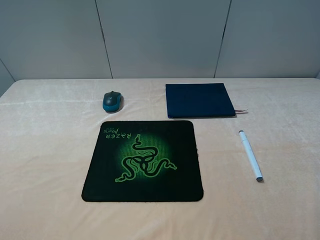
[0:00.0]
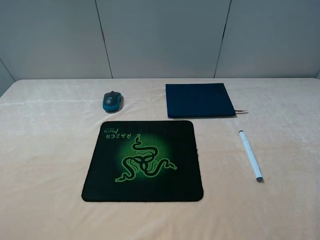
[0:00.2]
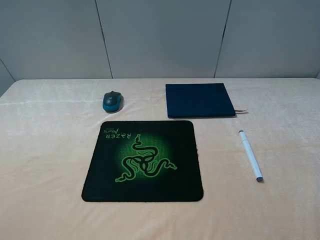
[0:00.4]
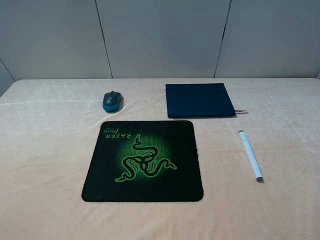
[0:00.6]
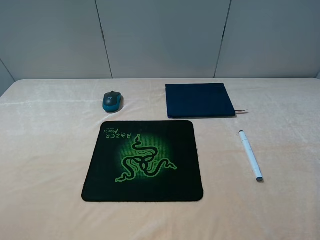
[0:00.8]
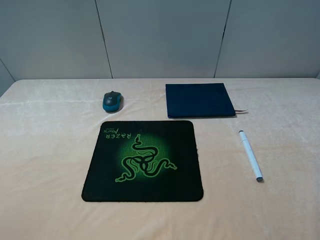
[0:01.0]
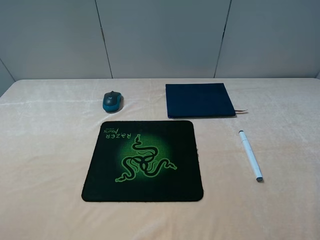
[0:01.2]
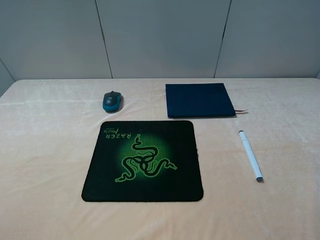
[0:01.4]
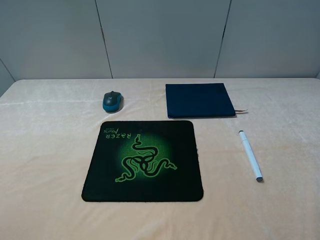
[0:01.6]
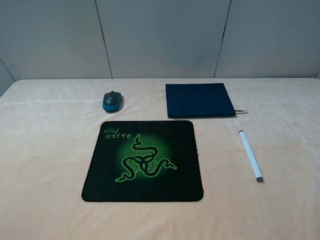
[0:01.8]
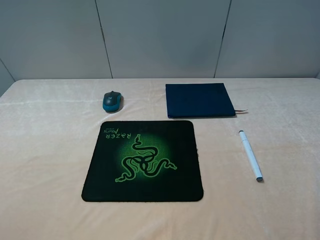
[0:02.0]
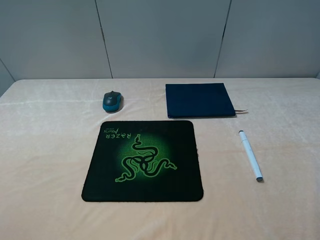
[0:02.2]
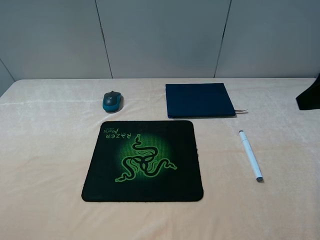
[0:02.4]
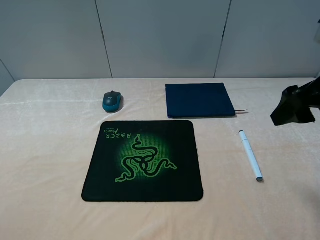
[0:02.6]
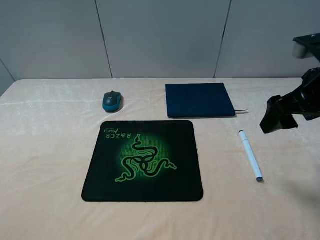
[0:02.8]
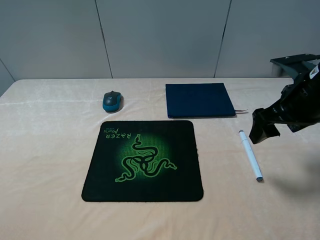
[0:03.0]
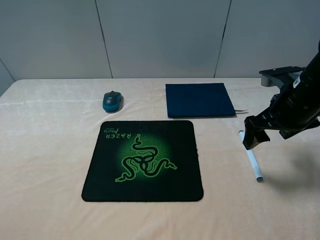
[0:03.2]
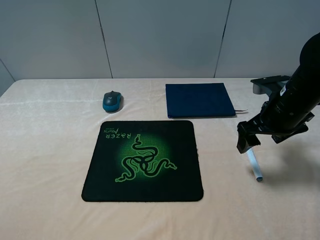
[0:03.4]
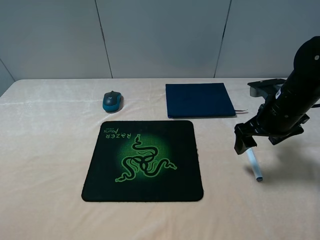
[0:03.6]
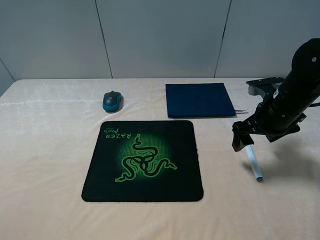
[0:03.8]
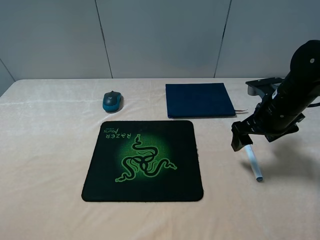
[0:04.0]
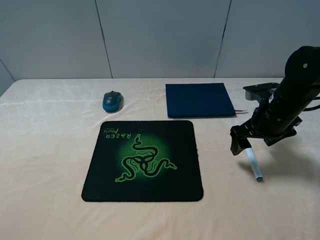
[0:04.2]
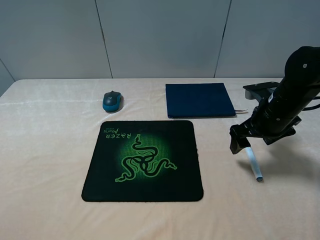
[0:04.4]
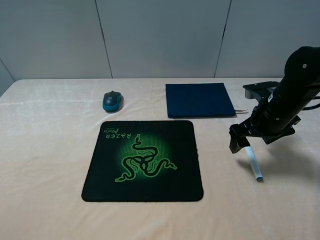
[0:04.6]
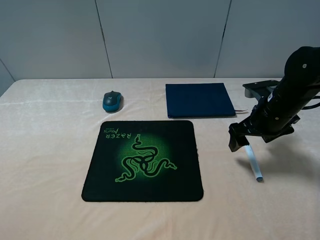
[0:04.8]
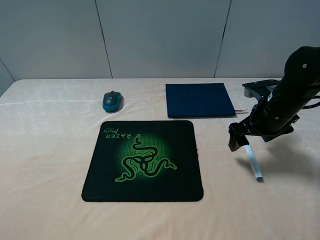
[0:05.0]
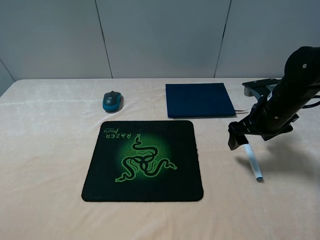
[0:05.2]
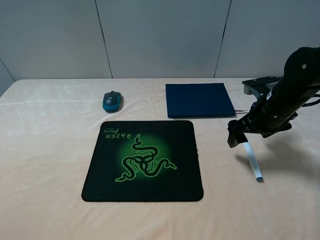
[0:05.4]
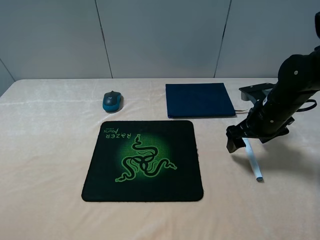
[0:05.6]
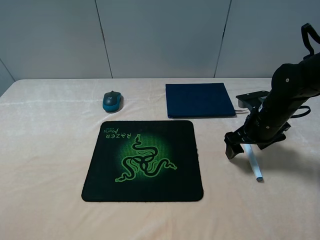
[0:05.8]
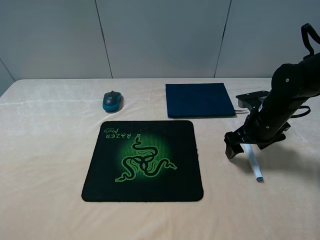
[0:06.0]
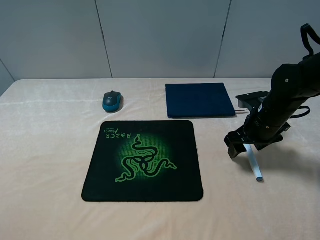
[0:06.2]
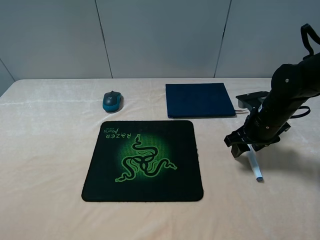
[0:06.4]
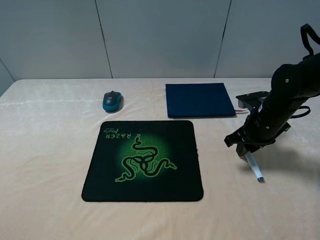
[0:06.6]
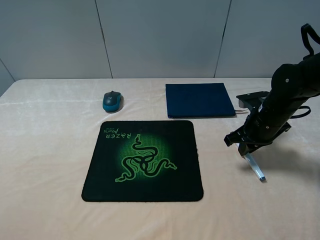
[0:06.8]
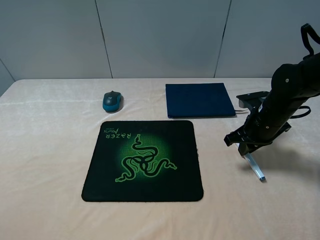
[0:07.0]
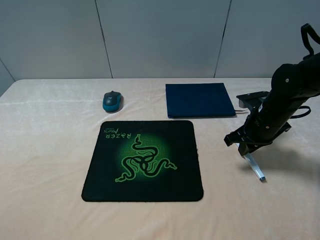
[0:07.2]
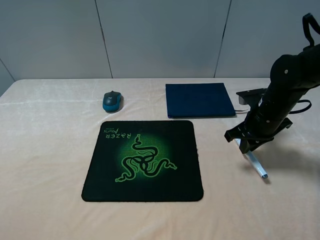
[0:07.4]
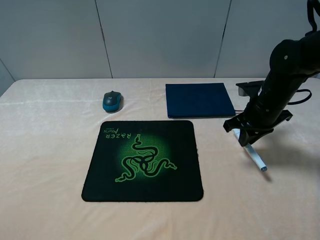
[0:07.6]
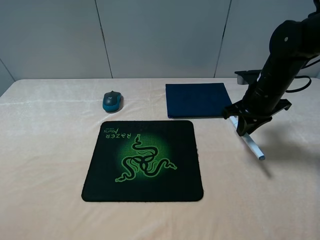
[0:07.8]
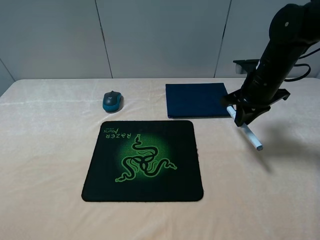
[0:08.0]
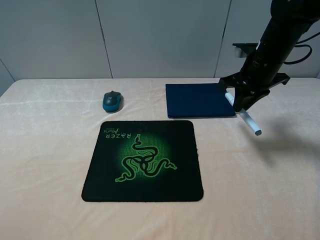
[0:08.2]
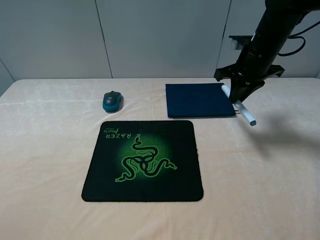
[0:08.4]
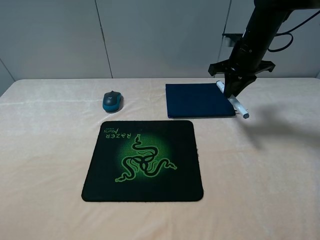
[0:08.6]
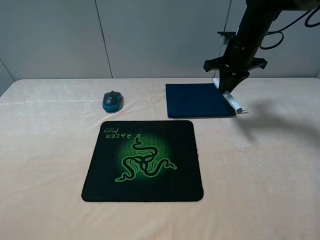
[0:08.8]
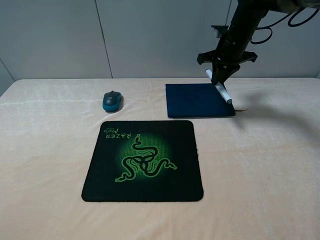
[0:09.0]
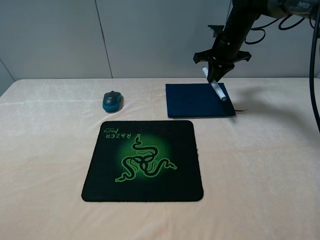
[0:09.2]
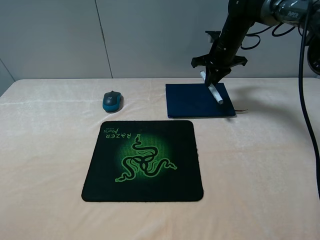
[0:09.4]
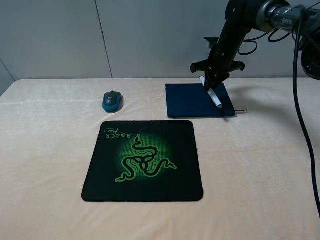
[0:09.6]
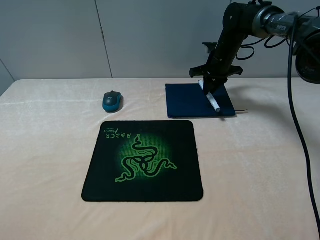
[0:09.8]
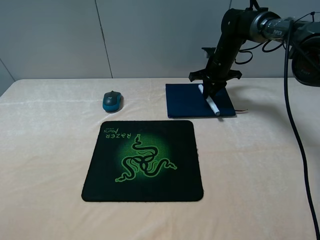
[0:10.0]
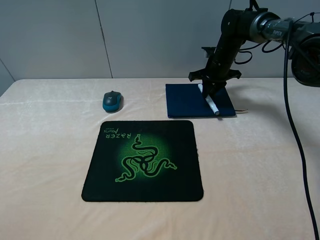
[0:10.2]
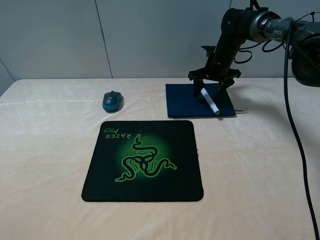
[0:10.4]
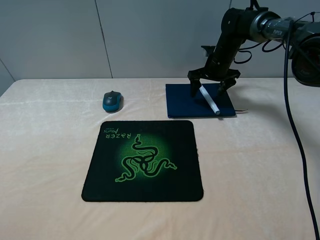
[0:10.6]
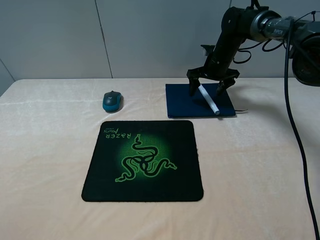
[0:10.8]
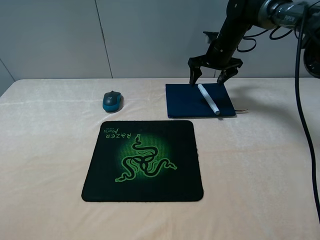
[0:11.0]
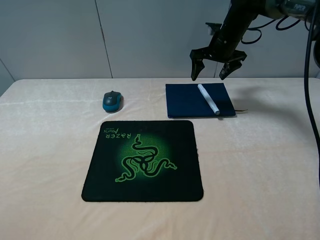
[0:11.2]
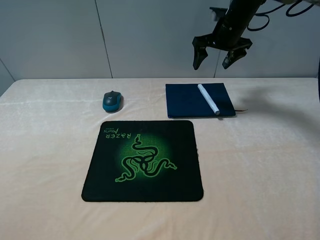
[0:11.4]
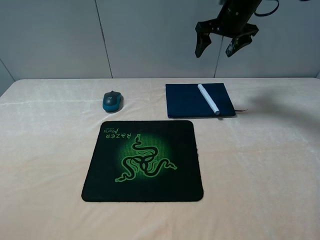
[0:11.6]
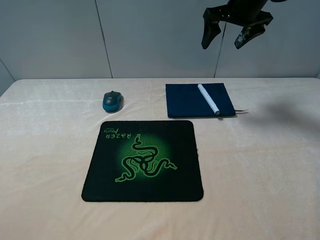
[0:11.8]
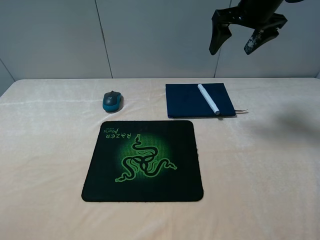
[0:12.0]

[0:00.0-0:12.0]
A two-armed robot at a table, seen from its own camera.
Step, 0:00.0 to 0:07.2: Grasp the marker with the right gripper.
Step, 0:07.4 to 0:11.4: Place the marker on the notebook with the right gripper.
0:01.6 to 0:03.0: The right gripper shifts some 25 cm forward.
0:03.0 to 0:04.4: The right gripper moves downward, roughly 5 cm.
0:04.4 to 0:06.0: The grippers stay close to where they were, moving slightly.
0:06.0 to 0:07.6: The right gripper closes its fingers.
0:07.6 to 0:09.0: The right gripper heads forward and upward, covering roughly 15 cm.
0:09.0 to 0:10.4: The right gripper travels downward by approximately 5 cm, and opens.
0:10.4 to 0:12.0: The right gripper goes about 20 cm upward and backward.

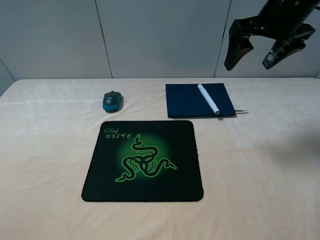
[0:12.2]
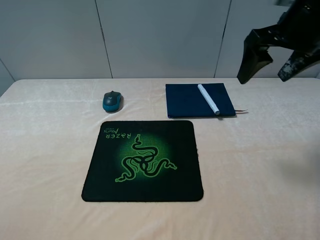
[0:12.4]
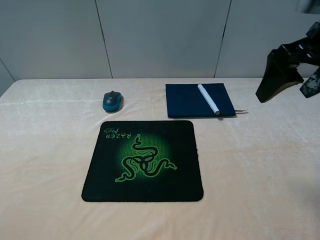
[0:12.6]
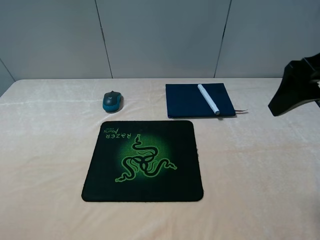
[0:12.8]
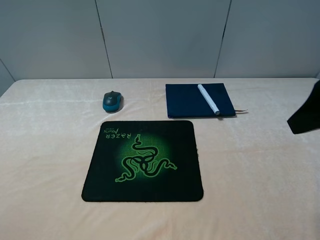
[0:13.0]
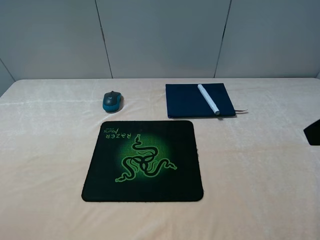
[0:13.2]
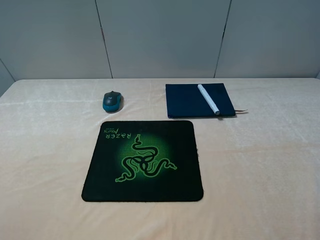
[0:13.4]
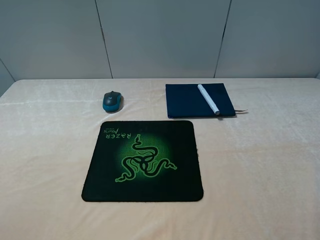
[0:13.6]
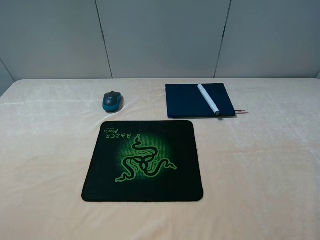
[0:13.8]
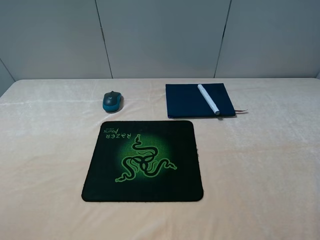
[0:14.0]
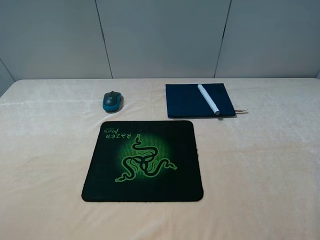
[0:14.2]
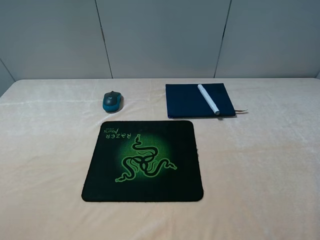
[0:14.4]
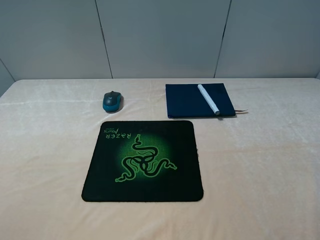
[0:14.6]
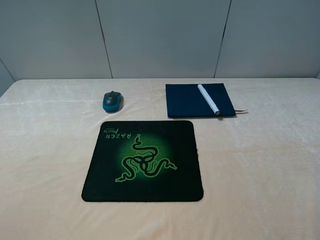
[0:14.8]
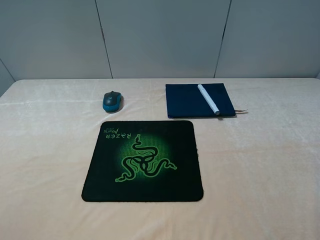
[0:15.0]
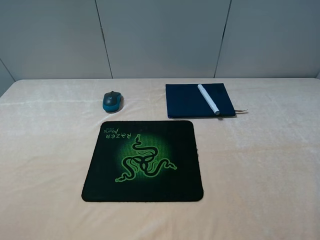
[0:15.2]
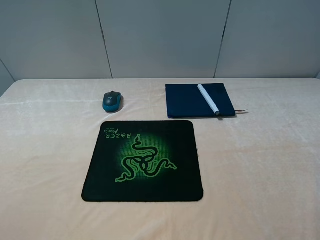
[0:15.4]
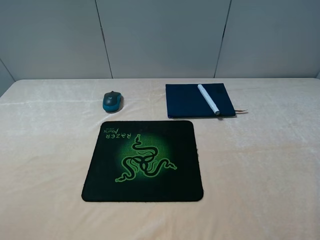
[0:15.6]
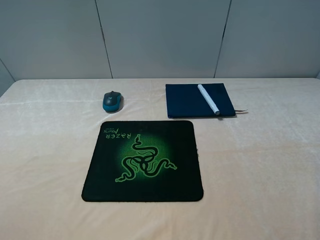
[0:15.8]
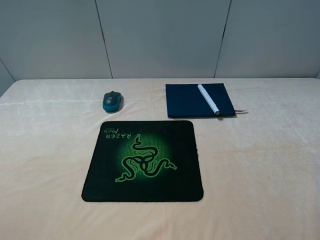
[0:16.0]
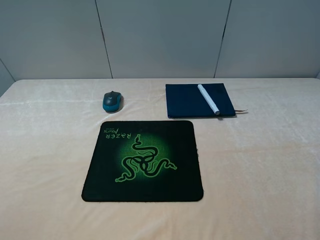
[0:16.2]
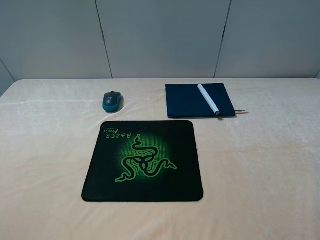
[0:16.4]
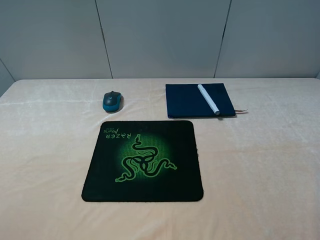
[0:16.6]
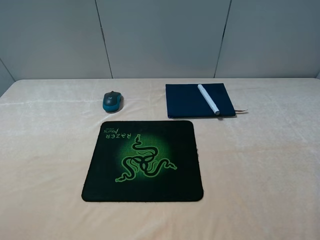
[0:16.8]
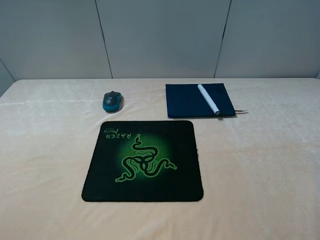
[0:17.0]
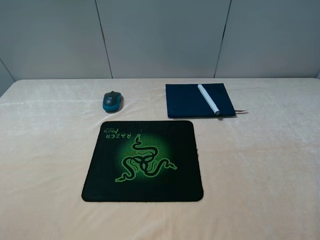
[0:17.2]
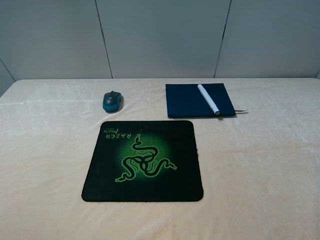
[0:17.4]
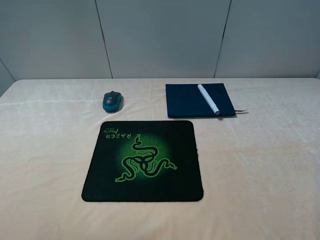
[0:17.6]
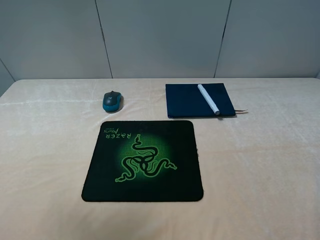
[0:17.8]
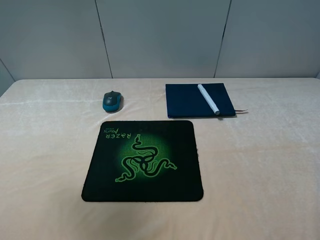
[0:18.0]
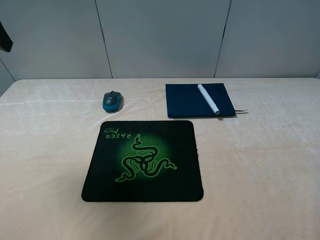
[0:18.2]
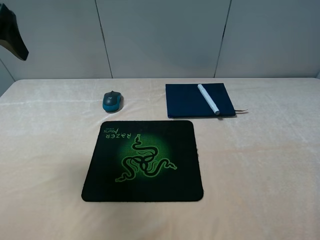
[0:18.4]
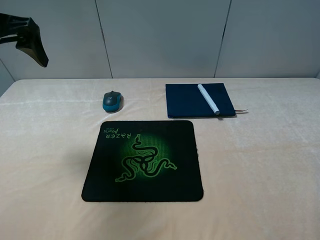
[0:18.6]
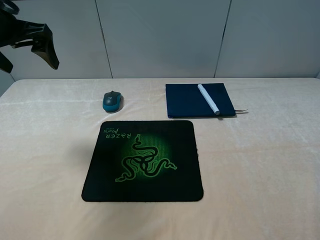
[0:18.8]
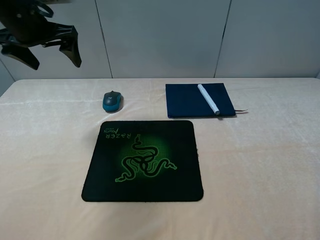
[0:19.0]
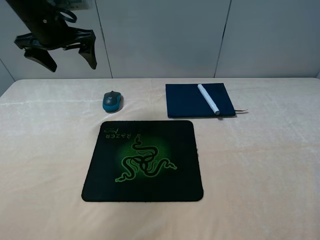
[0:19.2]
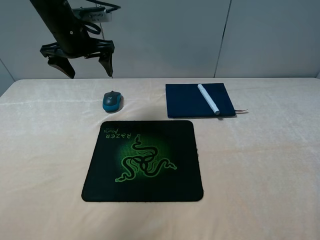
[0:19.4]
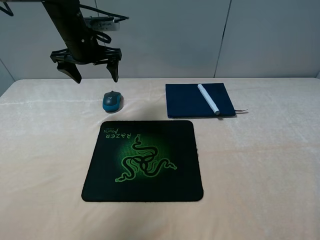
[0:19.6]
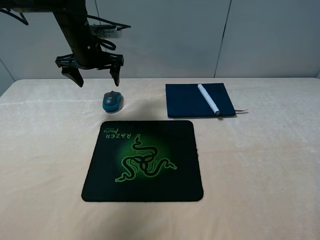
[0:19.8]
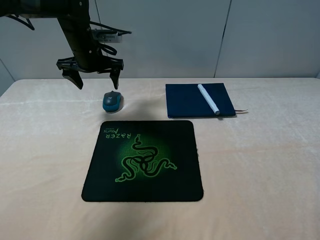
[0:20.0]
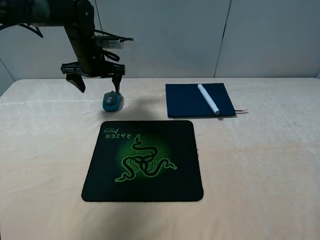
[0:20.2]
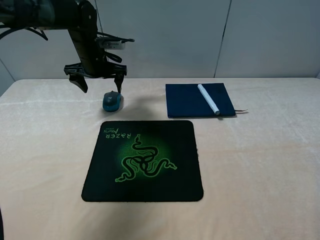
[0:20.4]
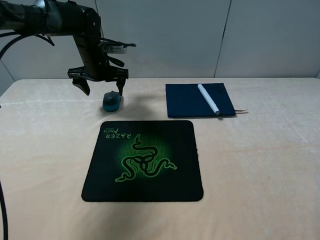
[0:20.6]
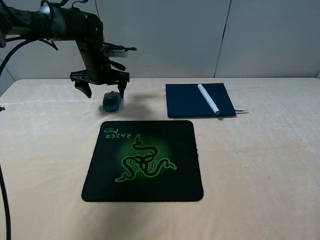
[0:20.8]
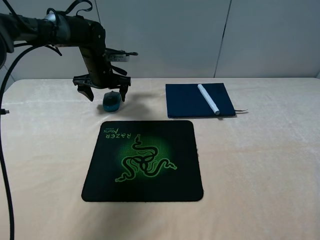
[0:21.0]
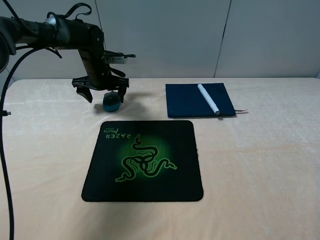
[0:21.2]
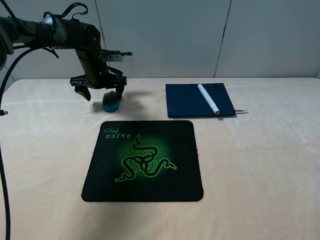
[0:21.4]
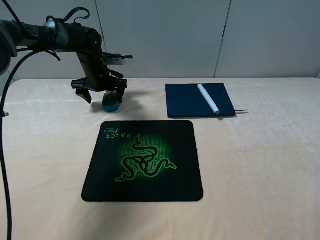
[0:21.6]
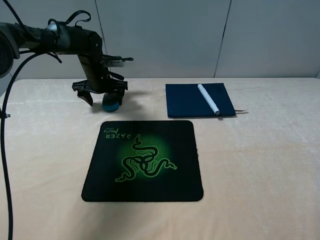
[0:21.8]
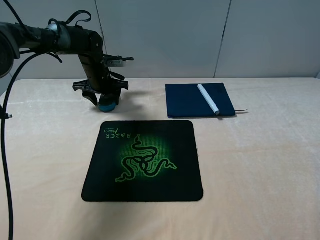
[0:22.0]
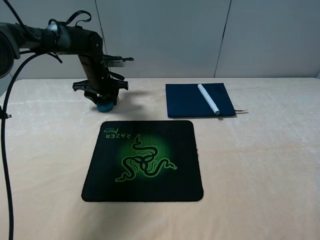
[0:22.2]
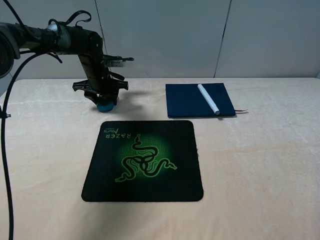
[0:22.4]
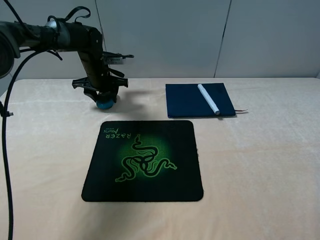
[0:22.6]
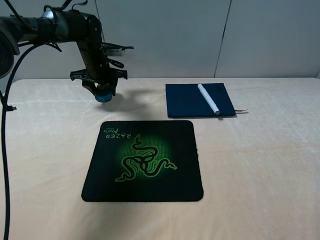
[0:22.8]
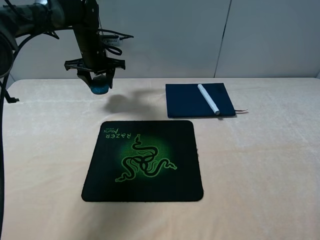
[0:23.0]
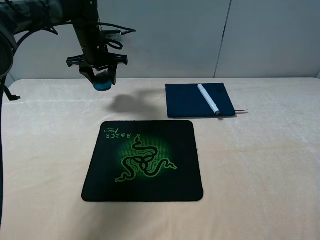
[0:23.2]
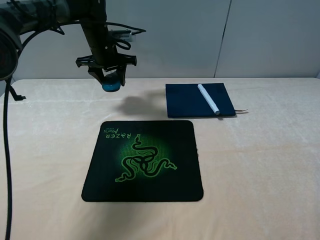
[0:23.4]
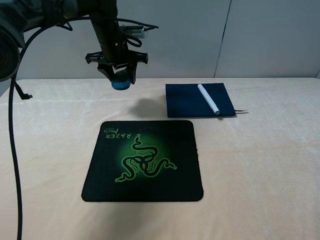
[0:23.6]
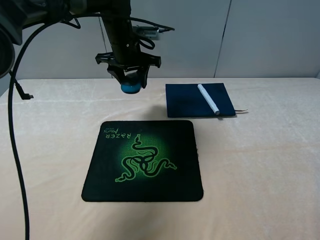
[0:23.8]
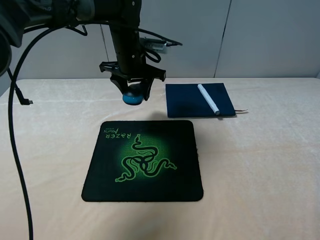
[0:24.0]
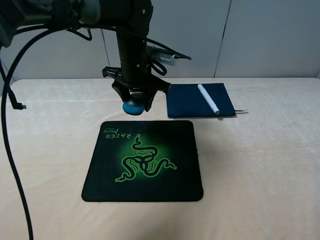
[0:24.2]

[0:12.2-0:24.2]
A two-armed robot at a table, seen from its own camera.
Step, 0:12.2 to 0:22.0: Grasp the mouse with the left gripper.
0:12.2 to 0:13.8: The right gripper travels backward by roughly 30 cm.
0:15.2 to 0:16.6: Both grippers stay about where they are.
0:16.6 to 0:18.2: The left gripper travels forward and upward by approximately 30 cm.
0:18.2 to 0:19.8: The left gripper shifts roughly 30 cm forward, downward and to the right.
0:19.8 to 0:21.2: The left gripper heads downward, covering about 10 cm.
0:21.2 to 0:22.6: The left gripper closes up.
0:22.6 to 0:24.2: The left gripper is displaced to the right, backward and upward by approximately 20 cm.
